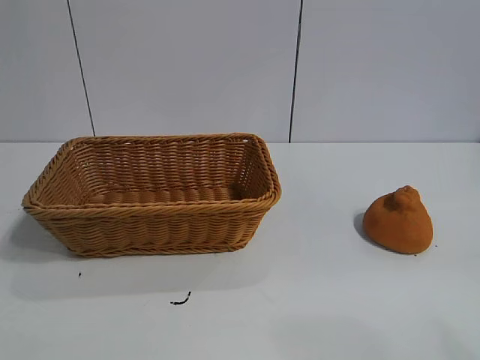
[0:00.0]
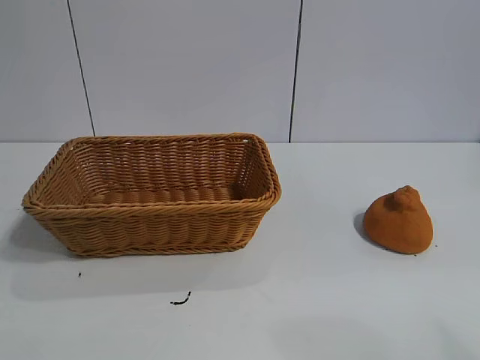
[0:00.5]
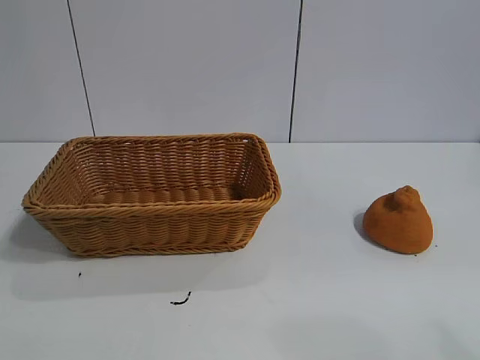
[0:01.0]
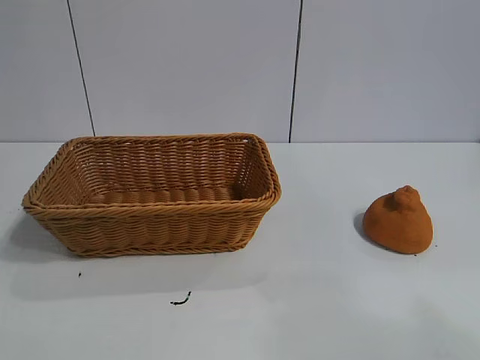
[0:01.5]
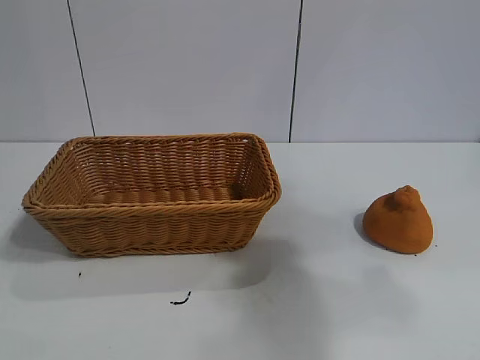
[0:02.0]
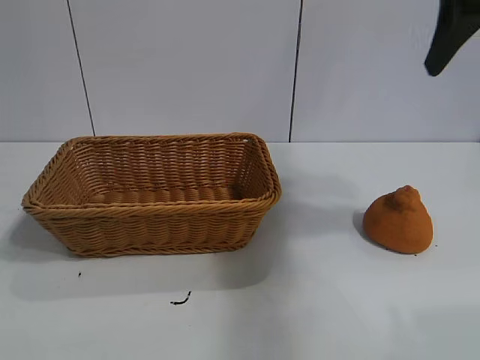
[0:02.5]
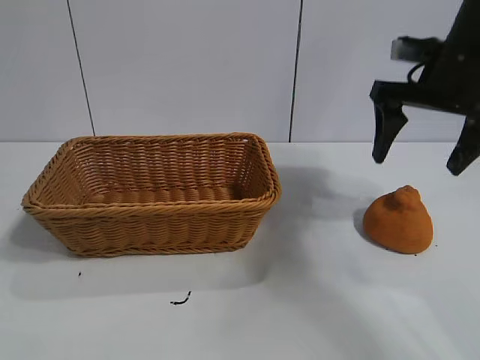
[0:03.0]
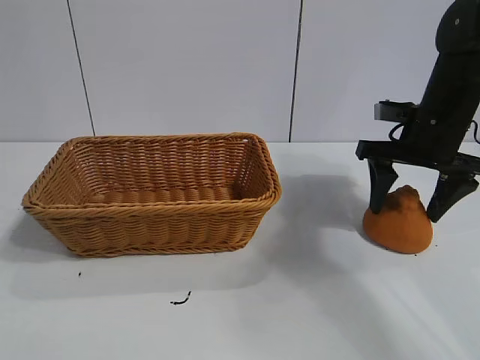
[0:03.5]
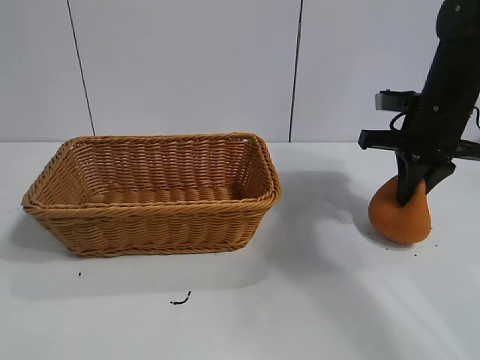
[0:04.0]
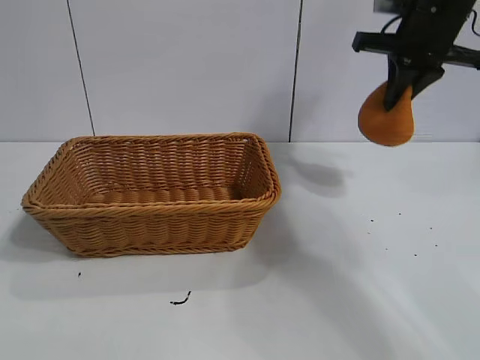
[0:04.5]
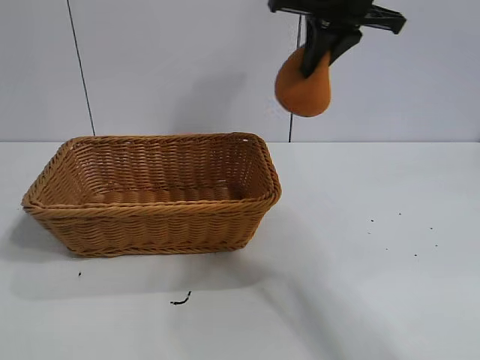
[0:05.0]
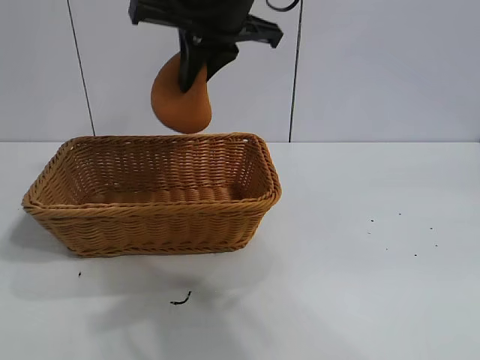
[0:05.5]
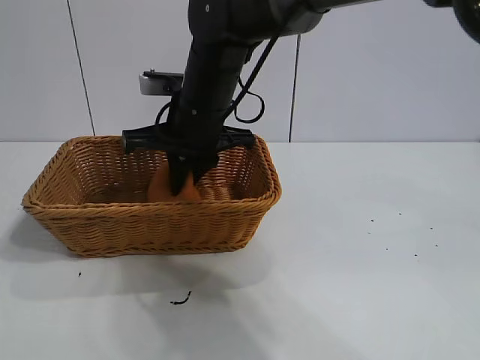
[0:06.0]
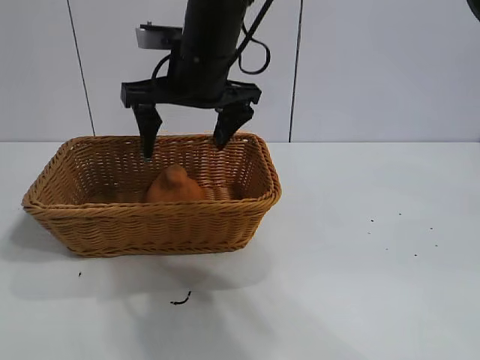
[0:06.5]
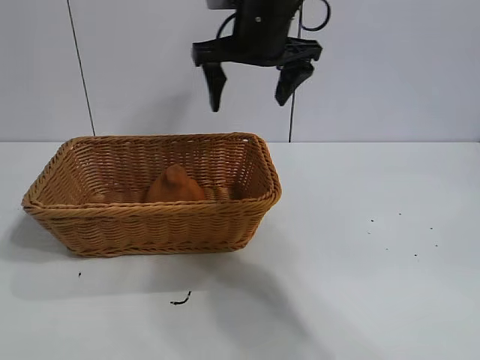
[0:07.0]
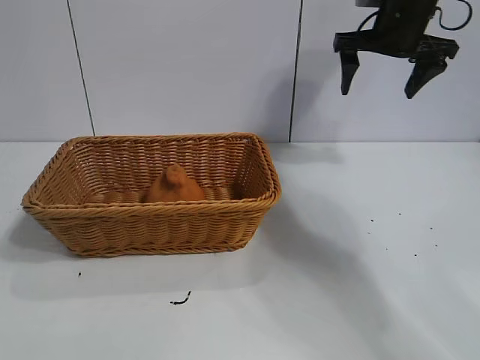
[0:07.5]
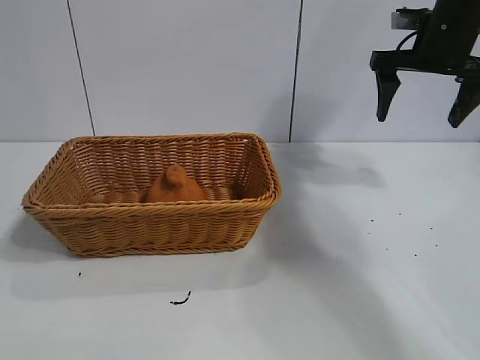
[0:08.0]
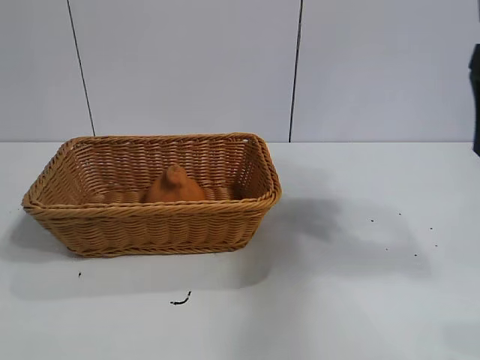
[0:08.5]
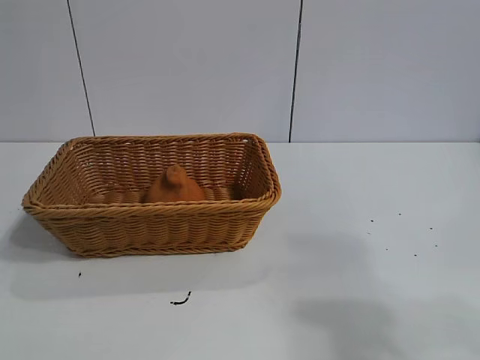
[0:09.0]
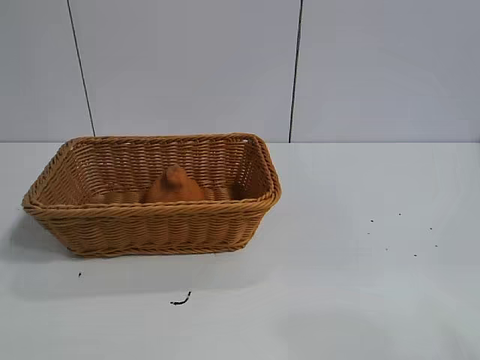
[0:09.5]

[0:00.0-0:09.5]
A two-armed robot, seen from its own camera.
Task of the whole recording: pick up the orange and put it into the basket.
Step, 0:01.0 to 0:03.5: Grasp the orange with right gripper.
Step, 0:04.0 to 0:06.0: Place the orange in the basket with right gripper.

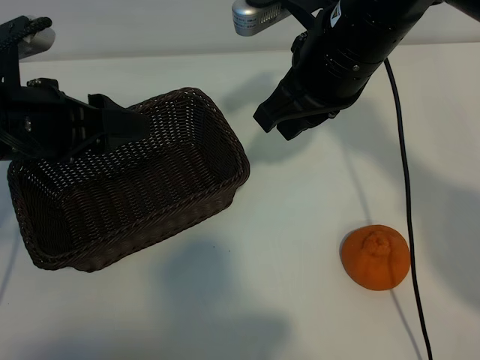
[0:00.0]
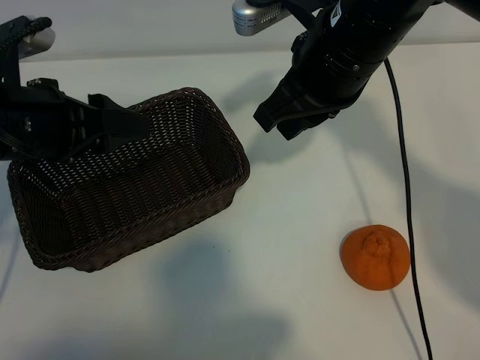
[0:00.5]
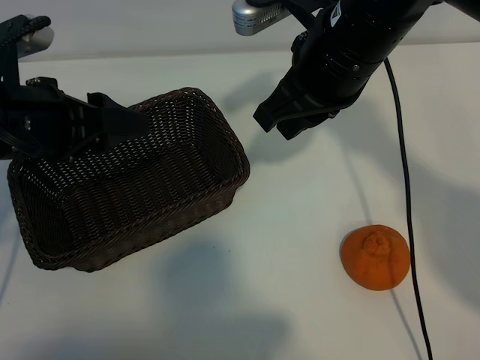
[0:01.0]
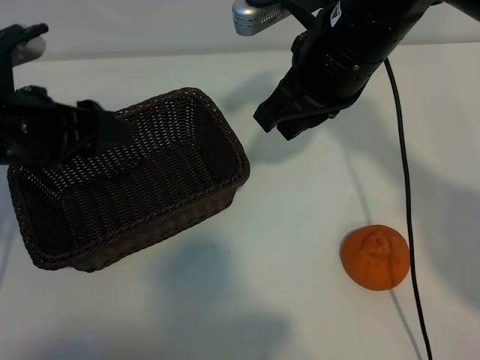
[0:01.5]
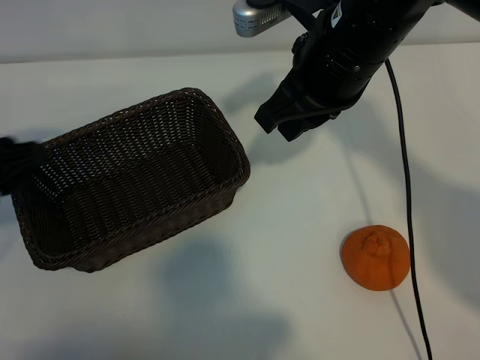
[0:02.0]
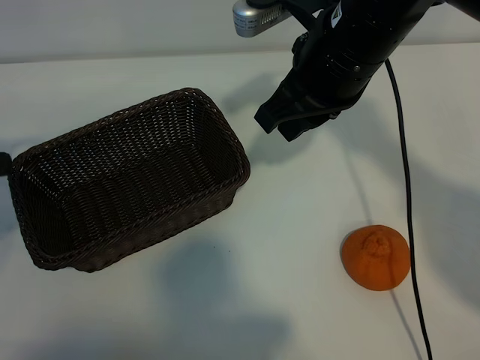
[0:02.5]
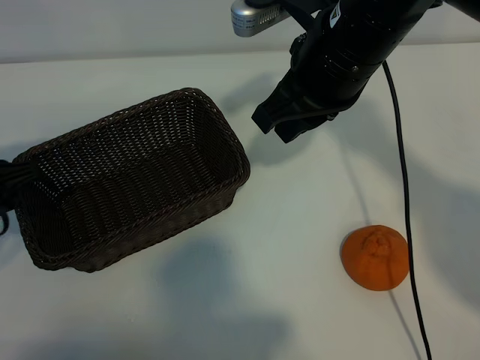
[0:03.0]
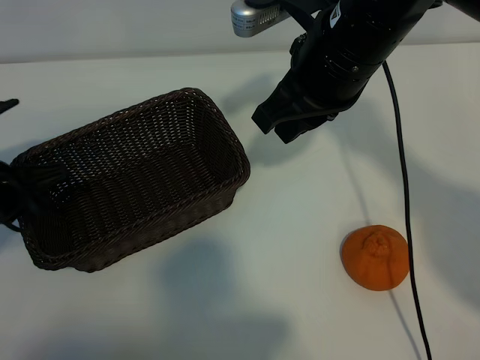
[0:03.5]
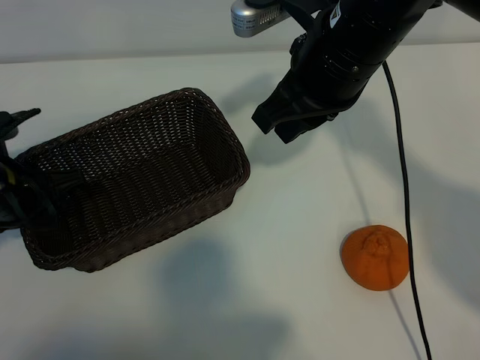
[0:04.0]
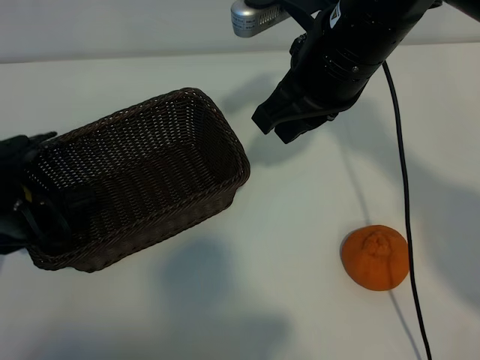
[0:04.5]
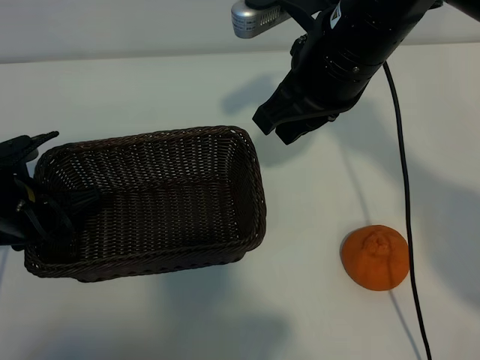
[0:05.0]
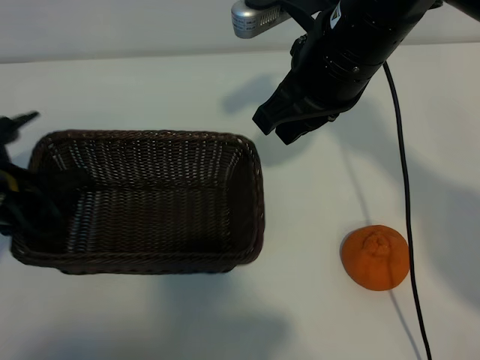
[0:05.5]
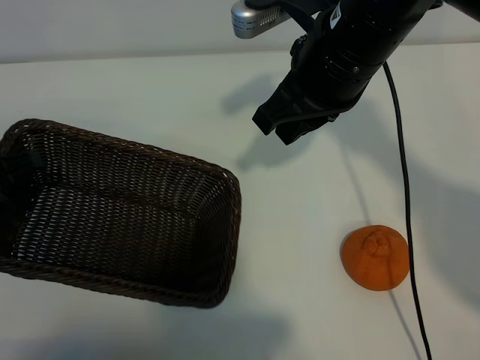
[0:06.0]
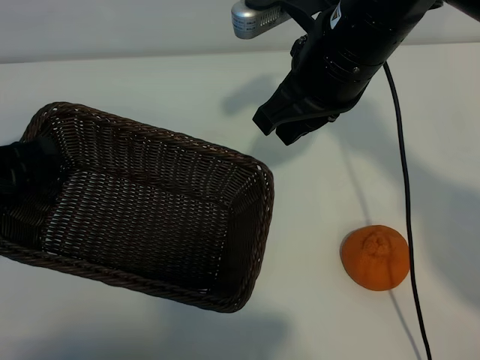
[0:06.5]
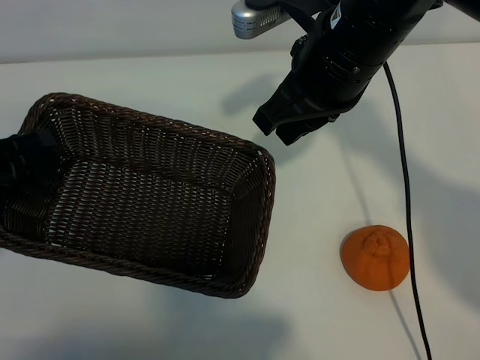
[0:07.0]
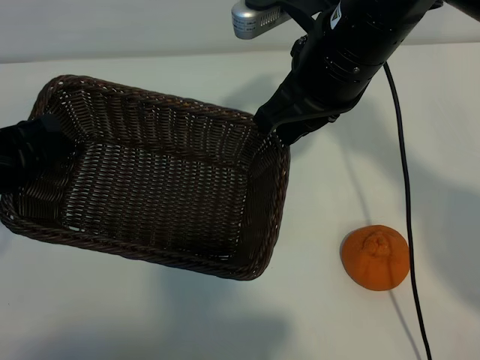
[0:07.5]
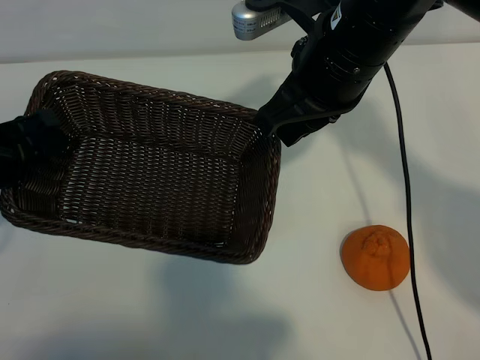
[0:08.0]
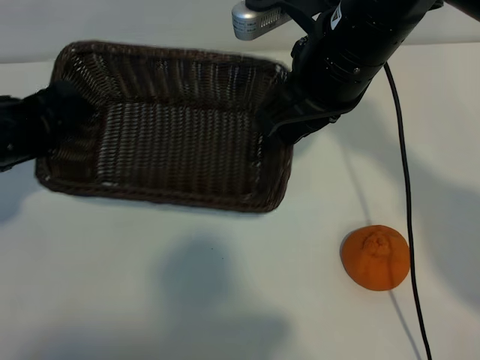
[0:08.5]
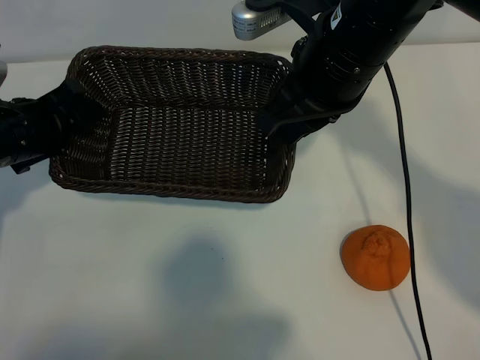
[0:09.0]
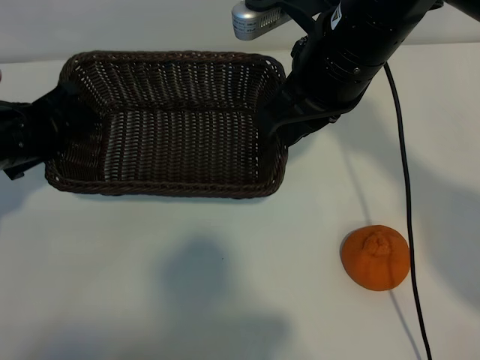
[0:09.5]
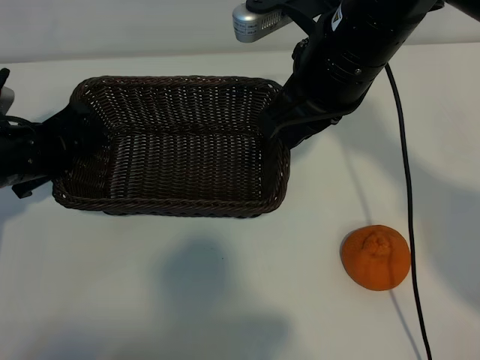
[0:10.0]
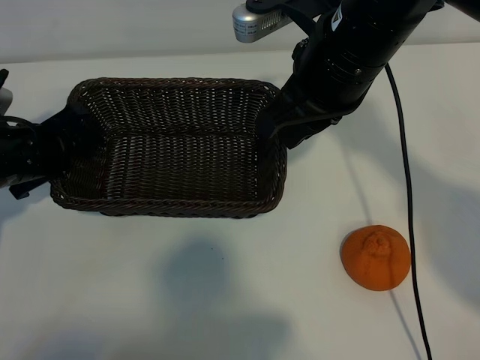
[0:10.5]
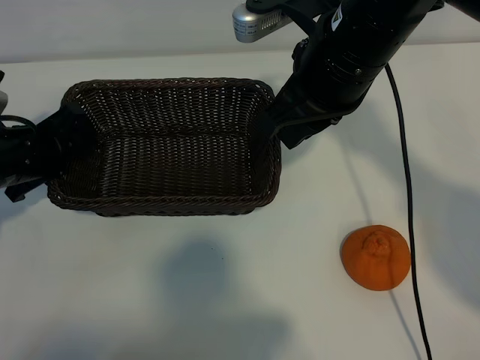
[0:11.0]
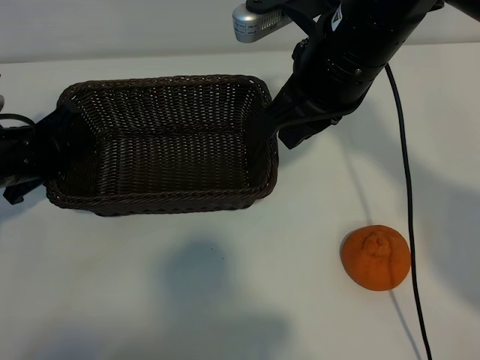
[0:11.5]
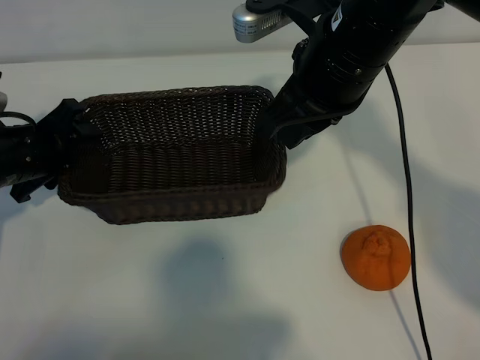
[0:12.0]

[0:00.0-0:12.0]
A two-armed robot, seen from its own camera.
Task of the whole recording: pick up the orange and put it into the basket.
Step, 0:01.0 to 0:04.5: Grasp the basket with left gripper.

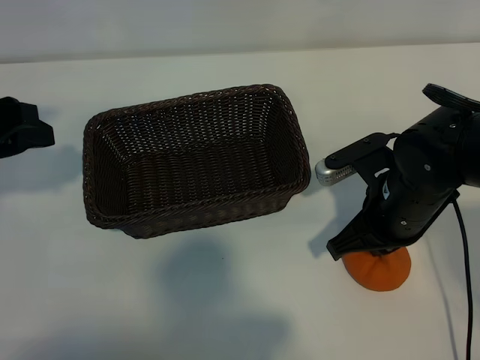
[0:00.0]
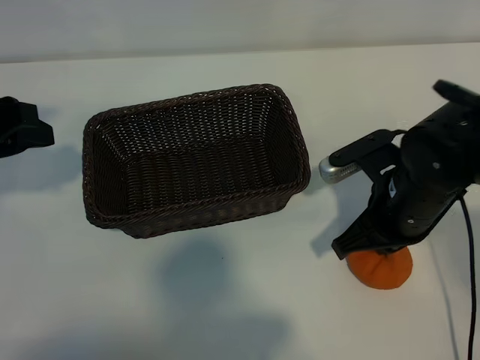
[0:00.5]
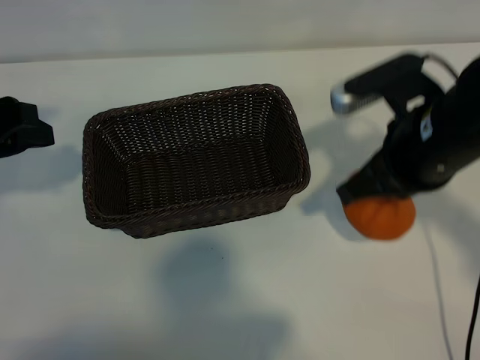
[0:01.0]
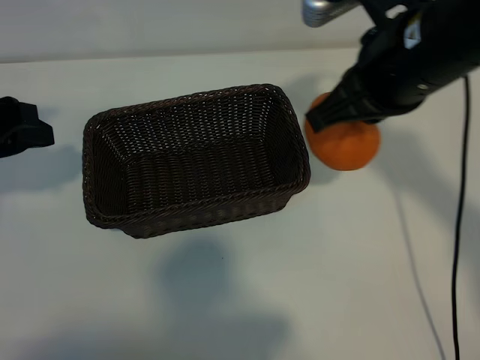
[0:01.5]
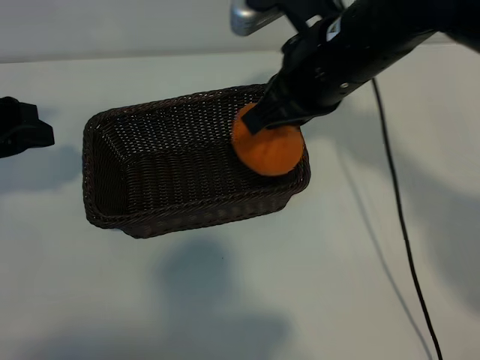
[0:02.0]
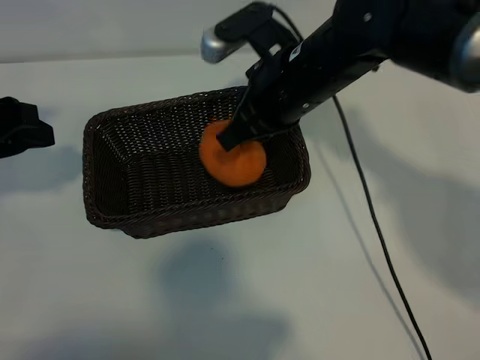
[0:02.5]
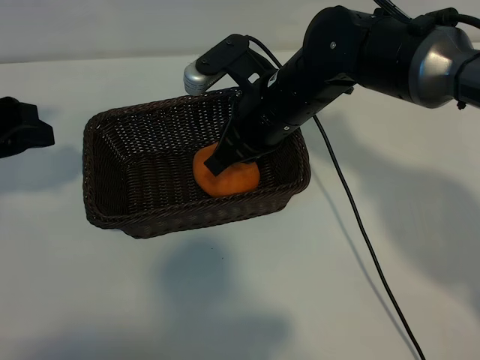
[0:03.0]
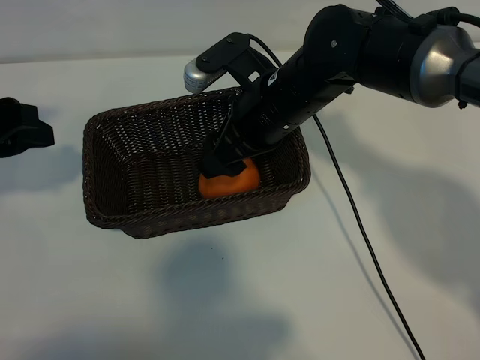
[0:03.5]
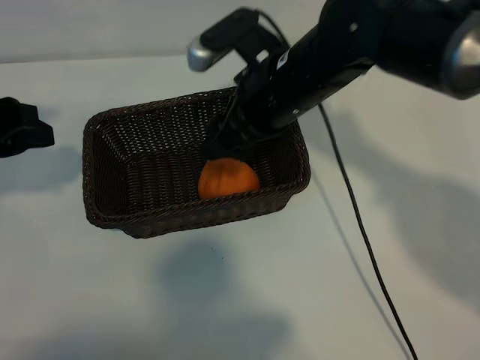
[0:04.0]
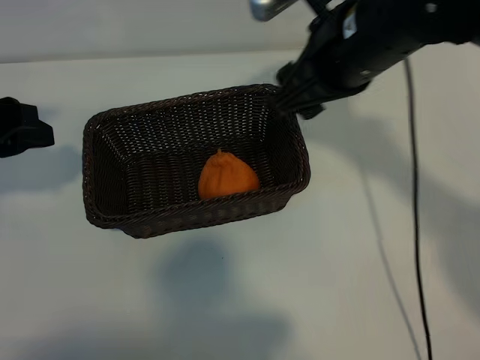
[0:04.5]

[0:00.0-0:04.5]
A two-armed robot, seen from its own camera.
Task of the whole recording: pick up the orange and put it into the basket.
Step, 0:00.0 to 0:03.5: Place the orange in the basket with right gripper.
